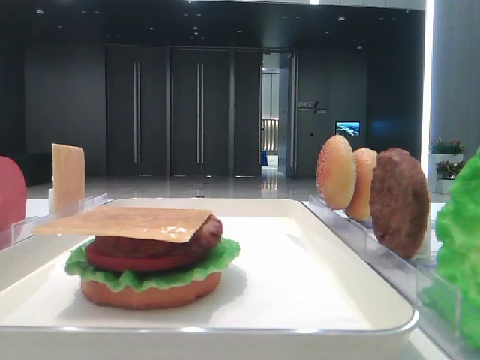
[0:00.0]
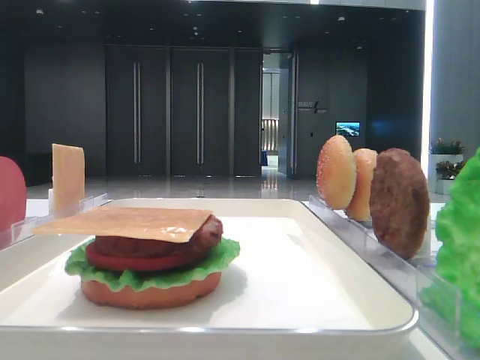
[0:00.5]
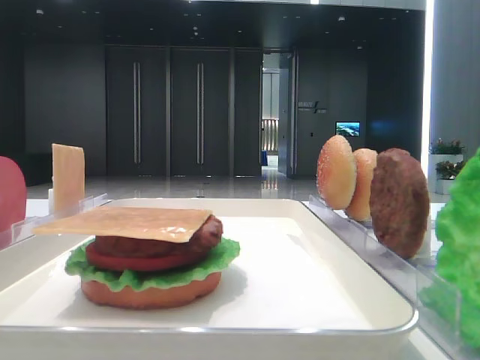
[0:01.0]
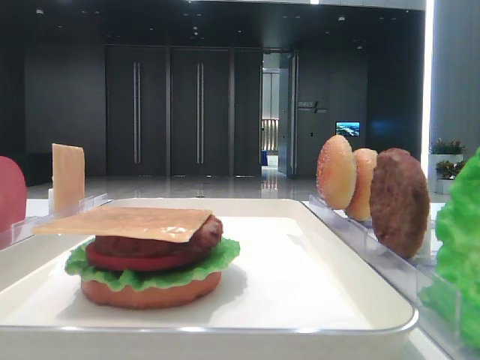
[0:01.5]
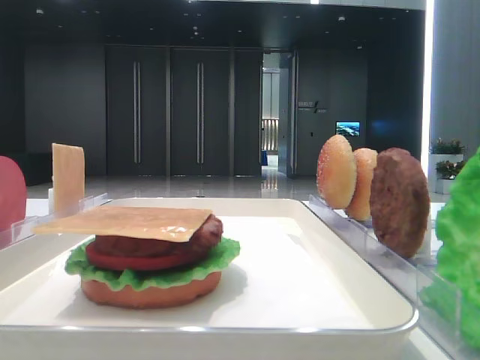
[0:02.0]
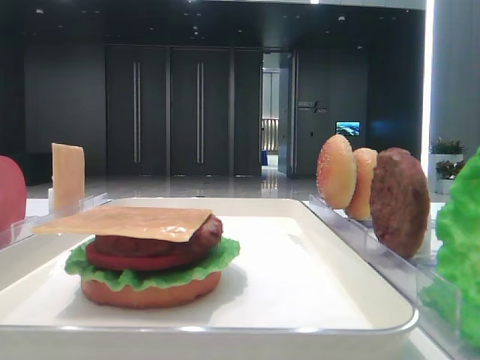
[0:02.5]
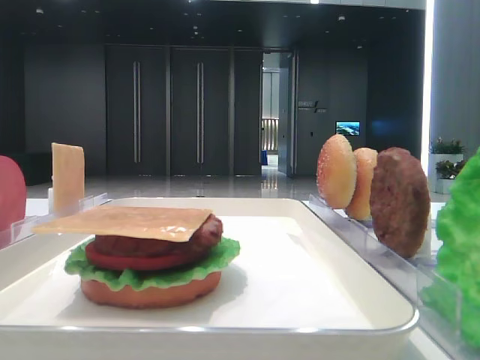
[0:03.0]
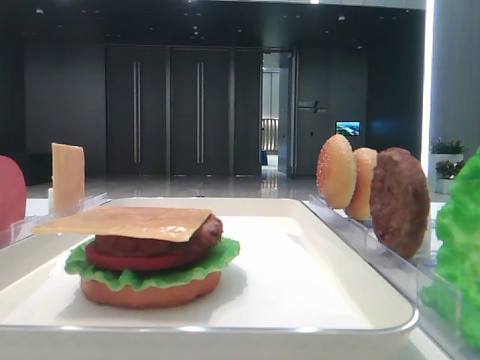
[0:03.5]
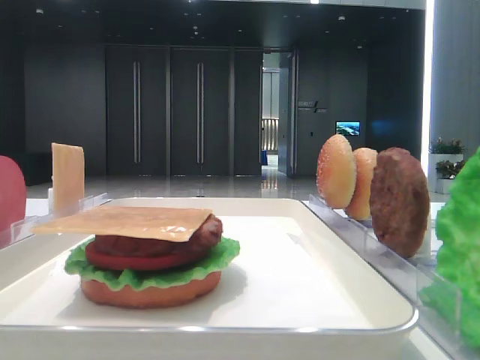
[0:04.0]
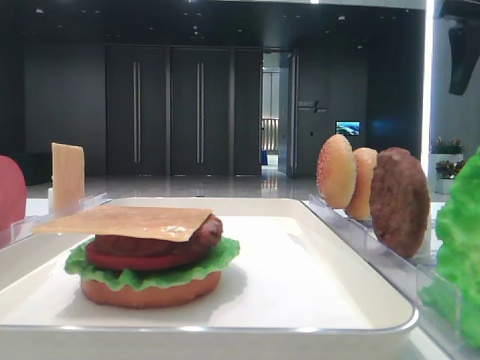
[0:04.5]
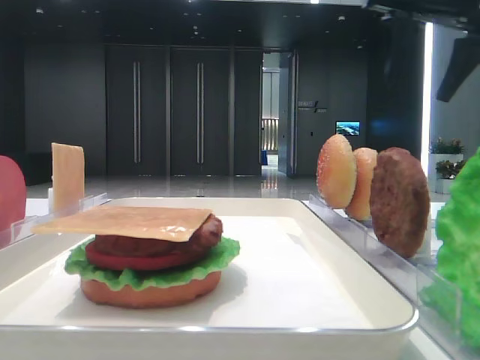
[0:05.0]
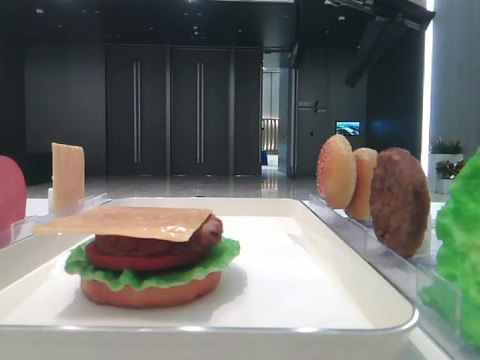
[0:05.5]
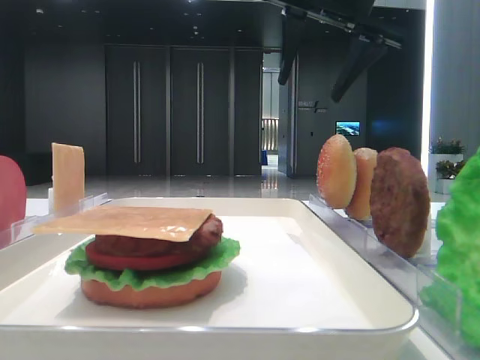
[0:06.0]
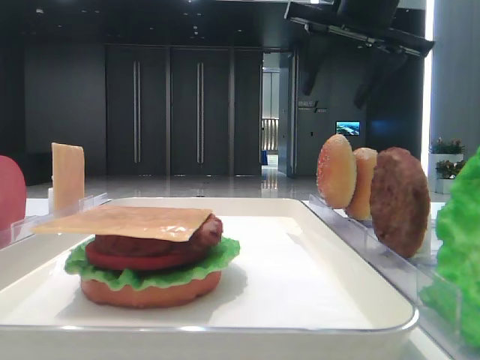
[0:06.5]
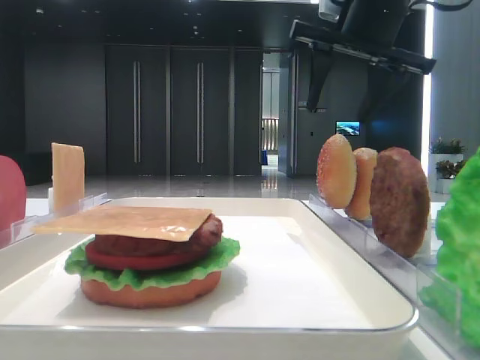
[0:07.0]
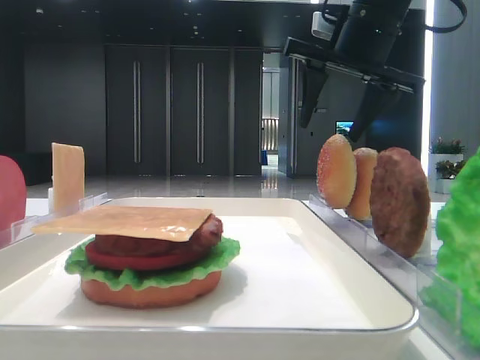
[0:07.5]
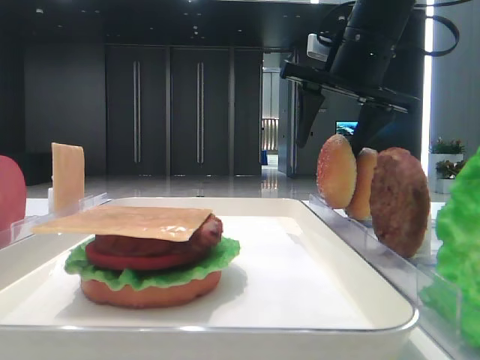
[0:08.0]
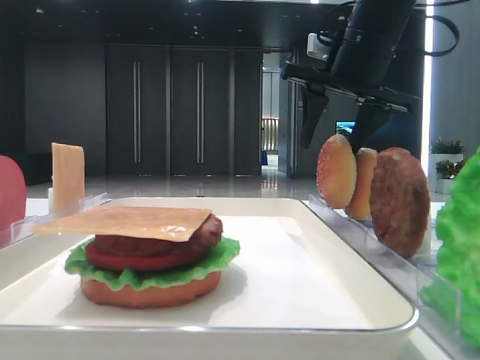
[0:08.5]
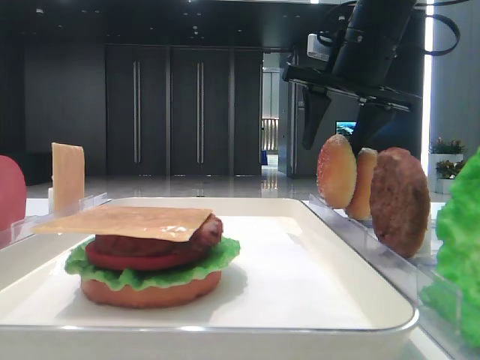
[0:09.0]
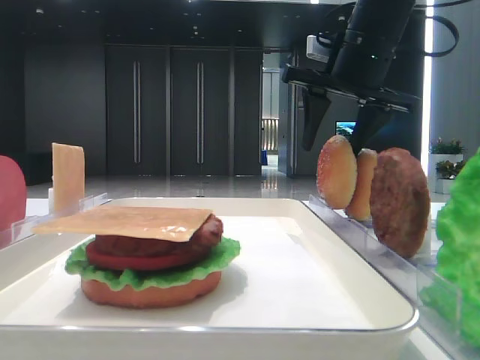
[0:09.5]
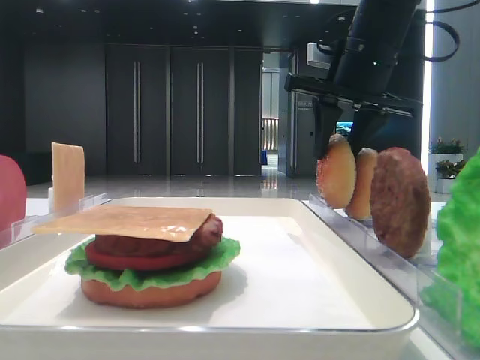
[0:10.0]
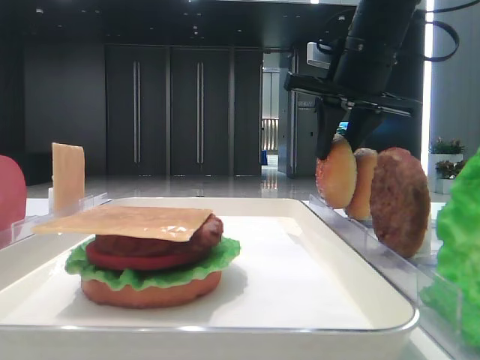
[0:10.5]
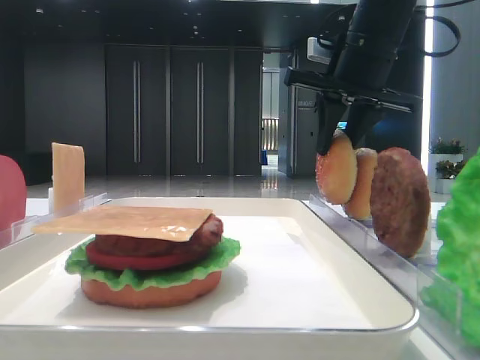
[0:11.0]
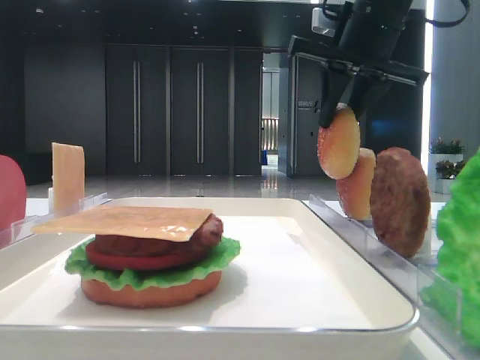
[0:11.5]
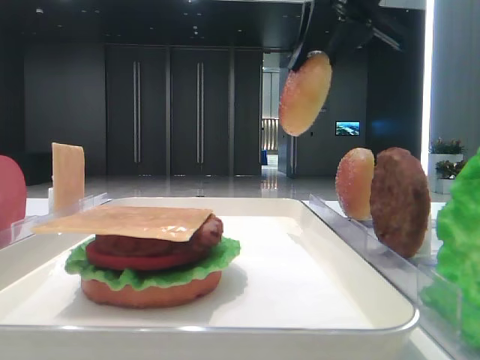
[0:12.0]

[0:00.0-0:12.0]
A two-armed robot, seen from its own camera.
Step, 0:00.0 to 0:10.0: Pick up the top bread slice with the right hand.
0:04.0 to 0:06.0: The right gripper is displaced to the left by approximately 20 cm.
0:06.0 to 0:08.0: The right gripper goes about 5 cm downward.
0:08.0 to 0:10.0: The right gripper closes up.
0:10.0 to 0:12.0: The right gripper heads upward, covering some 10 cm.

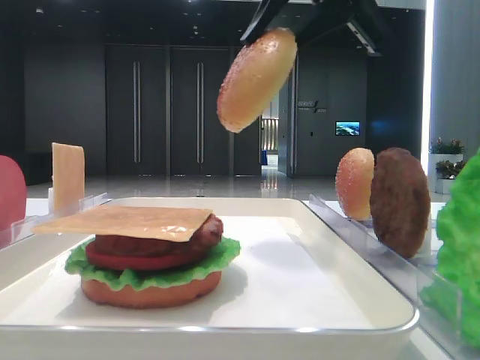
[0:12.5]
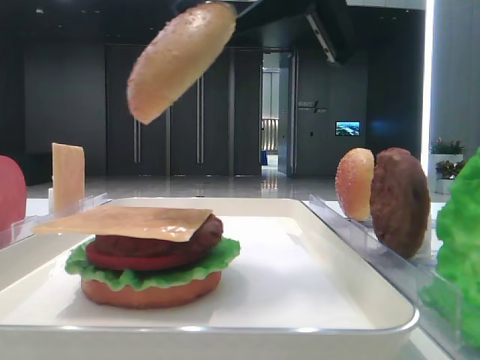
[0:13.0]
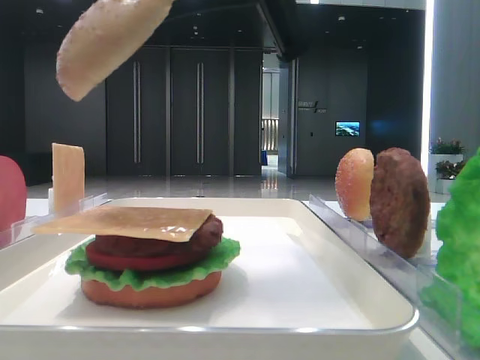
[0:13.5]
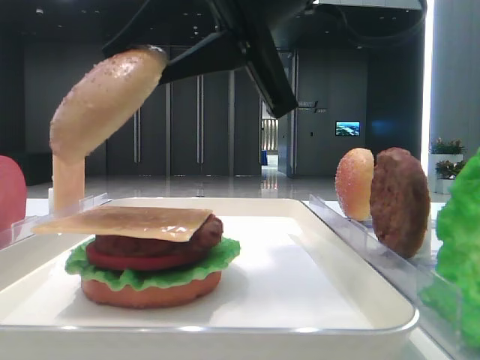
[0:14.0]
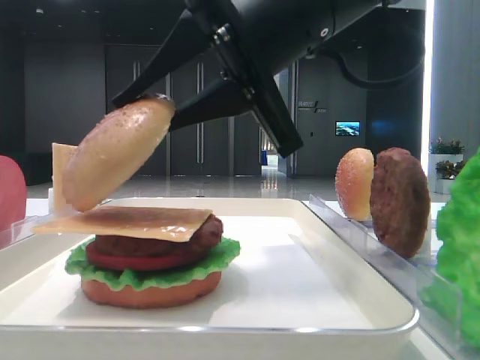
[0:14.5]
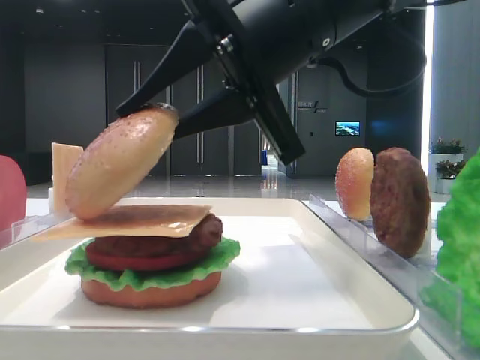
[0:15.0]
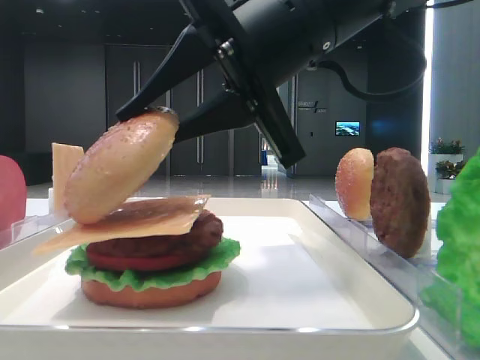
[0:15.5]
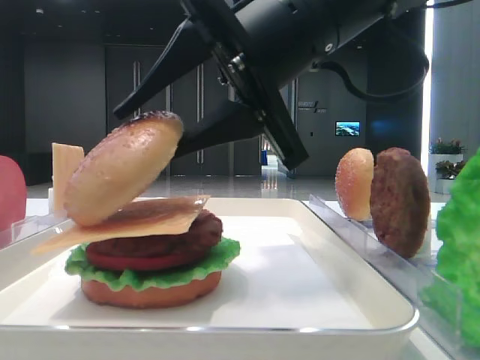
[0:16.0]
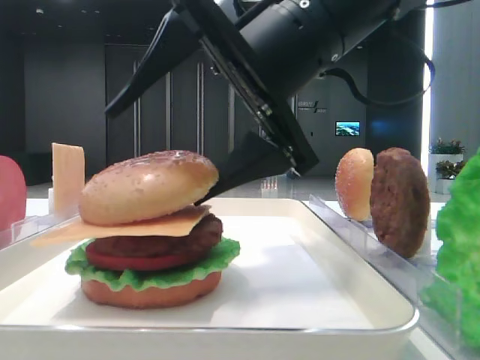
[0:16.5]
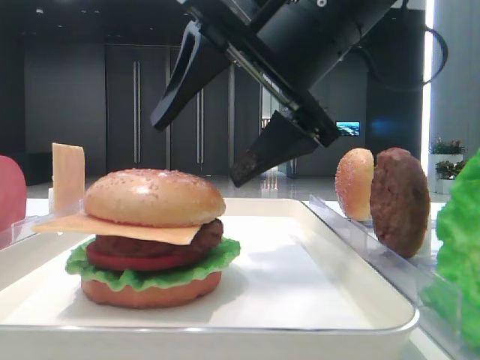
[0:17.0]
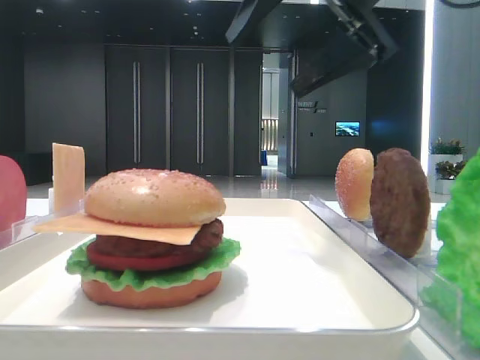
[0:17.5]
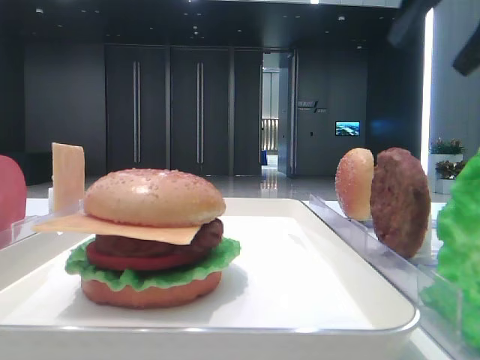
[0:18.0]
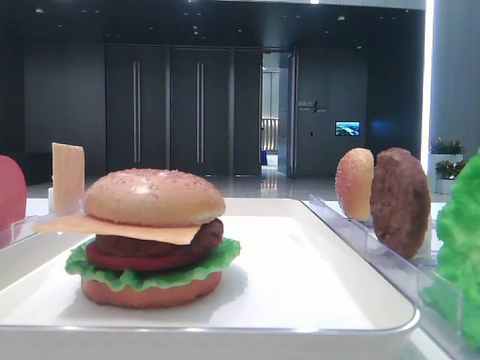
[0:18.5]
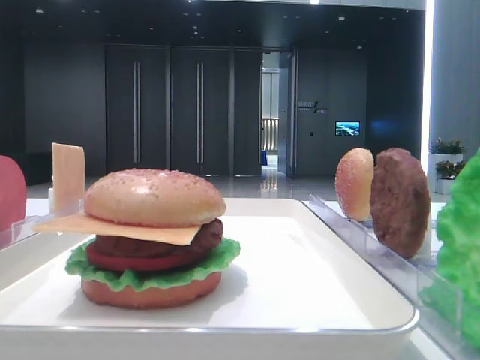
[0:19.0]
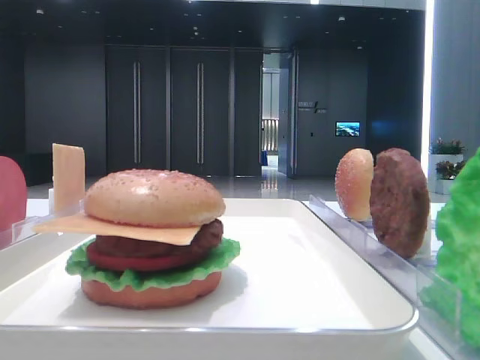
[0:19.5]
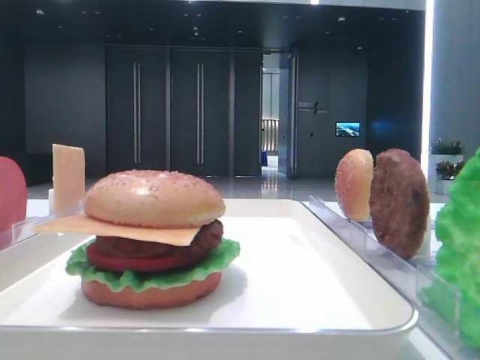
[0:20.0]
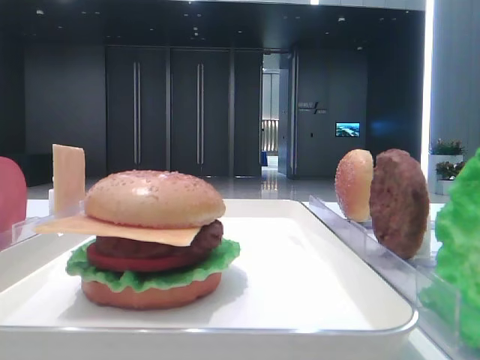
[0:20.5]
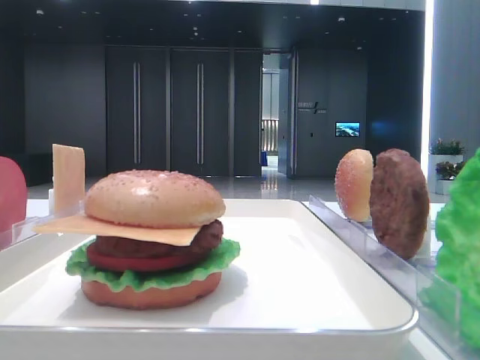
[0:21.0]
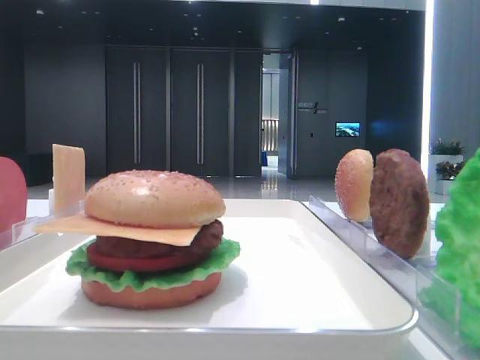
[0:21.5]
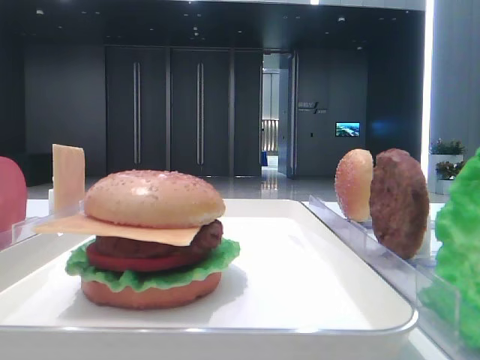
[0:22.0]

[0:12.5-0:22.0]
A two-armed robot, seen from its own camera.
Step, 0:12.5 to 0:16.5: Place the top bread slice on the cheese with the right hand.
0:12.5 to 0:14.5: The right gripper is displaced downward and to the left by about 10 cm.
0:14.5 to 0:16.5: The right gripper opens its fingers.
0:16.5 to 0:18.0: The right gripper is displaced to the right and upward by roughly 20 cm.
0:18.0 to 0:20.0: The right gripper is displaced backward by approximately 25 cm.

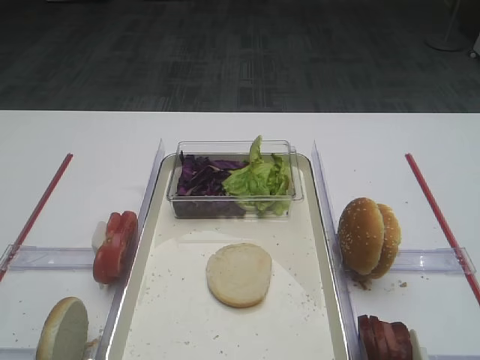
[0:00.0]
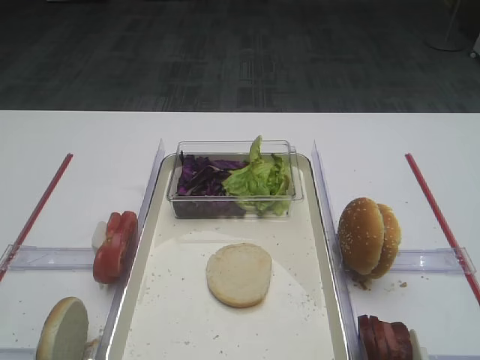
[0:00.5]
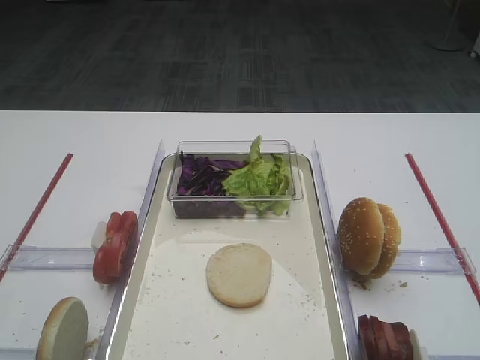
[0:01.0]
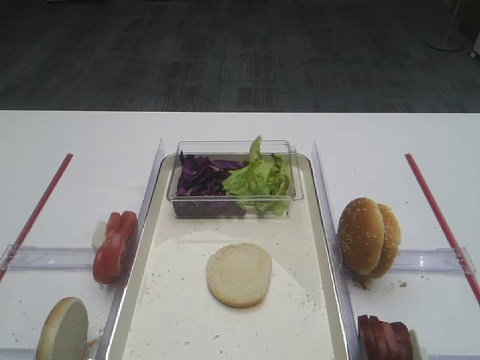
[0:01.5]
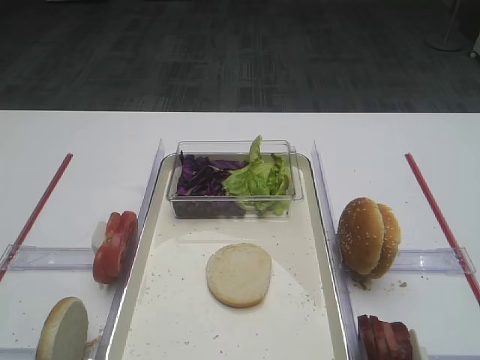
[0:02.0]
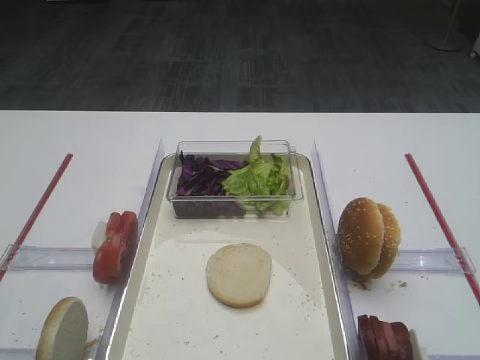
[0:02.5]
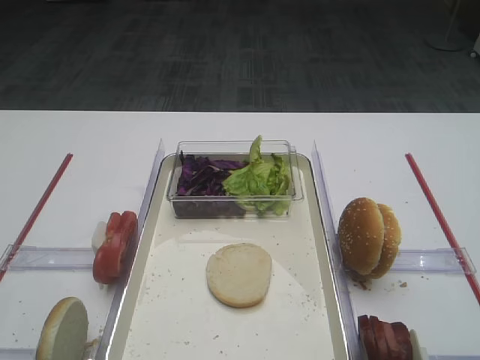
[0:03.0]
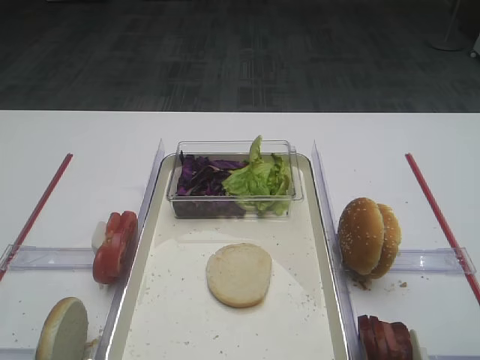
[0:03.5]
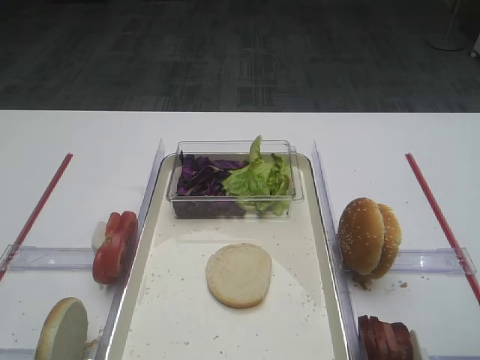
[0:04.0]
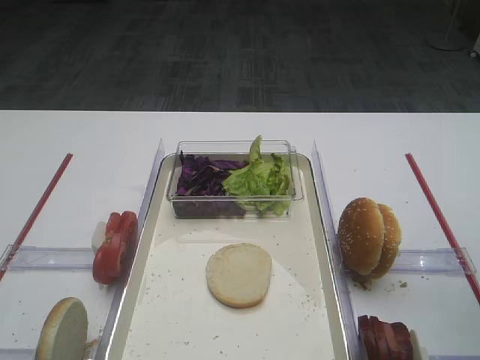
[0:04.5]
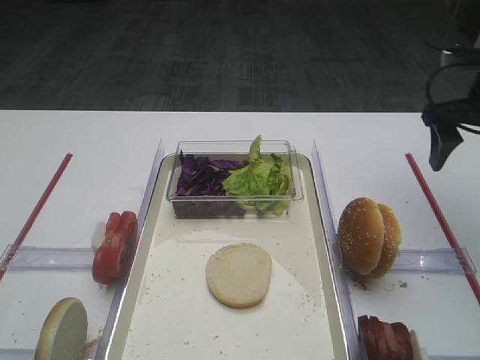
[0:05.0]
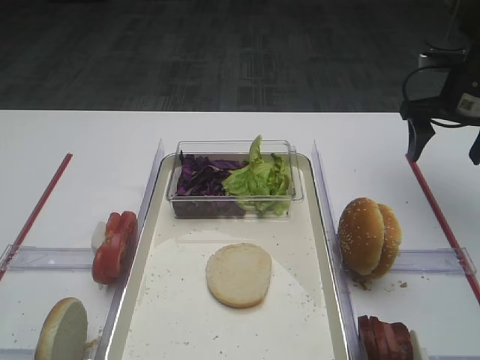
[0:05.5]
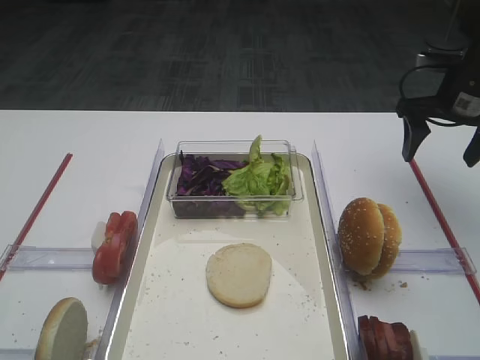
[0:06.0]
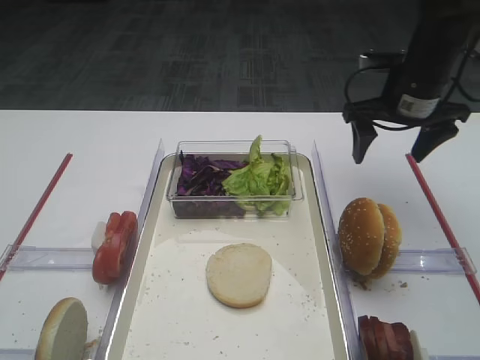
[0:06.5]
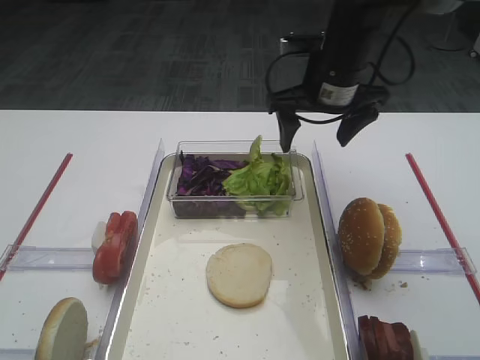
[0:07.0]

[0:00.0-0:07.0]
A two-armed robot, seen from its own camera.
0:03.5 to 0:05.0: The right gripper moves forward, approximately 25 cm.
0:05.0 to 0:07.0: The right gripper travels to the left and forward by some 20 cm.
